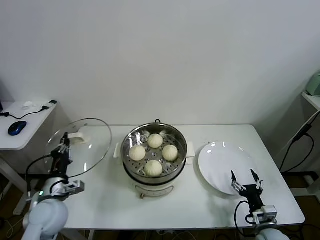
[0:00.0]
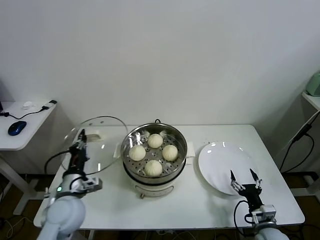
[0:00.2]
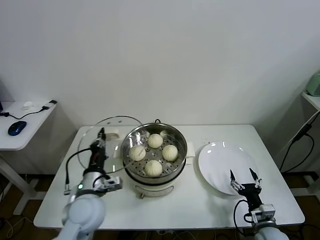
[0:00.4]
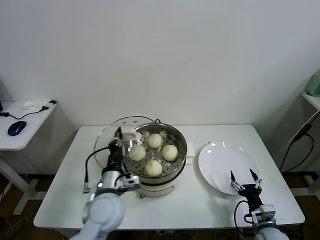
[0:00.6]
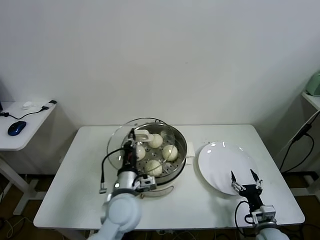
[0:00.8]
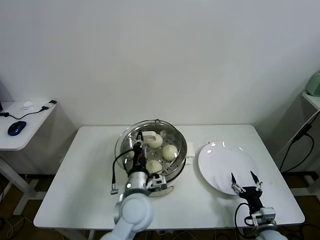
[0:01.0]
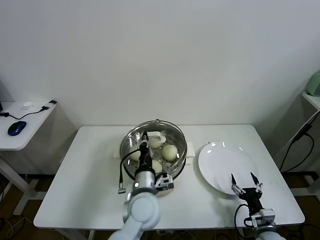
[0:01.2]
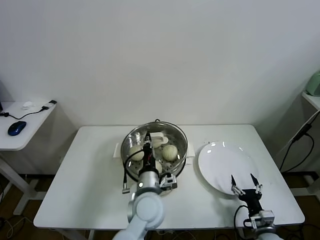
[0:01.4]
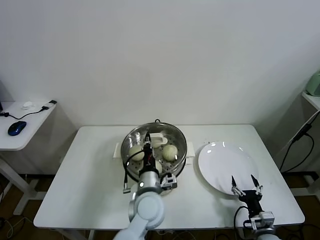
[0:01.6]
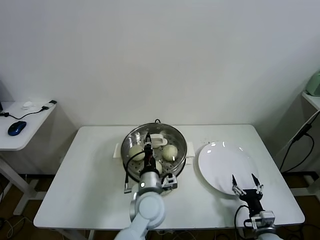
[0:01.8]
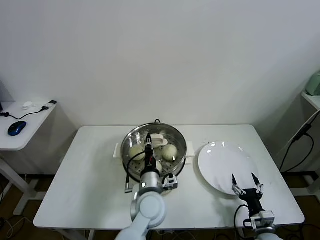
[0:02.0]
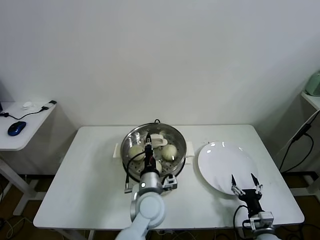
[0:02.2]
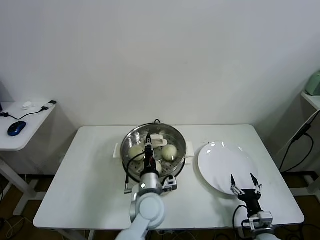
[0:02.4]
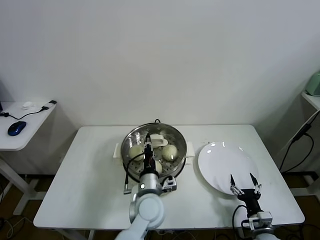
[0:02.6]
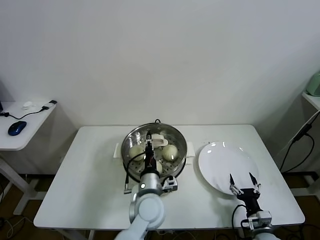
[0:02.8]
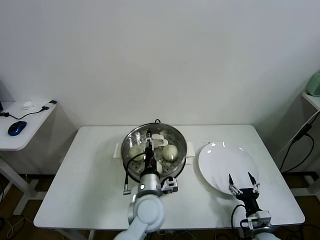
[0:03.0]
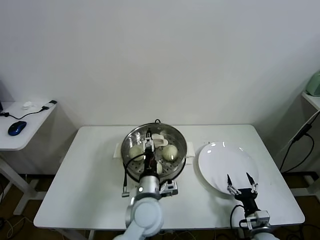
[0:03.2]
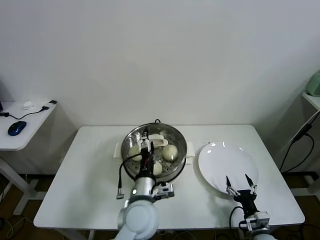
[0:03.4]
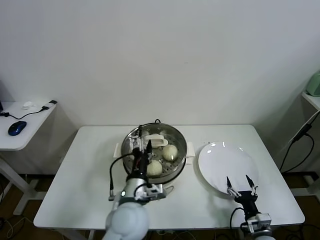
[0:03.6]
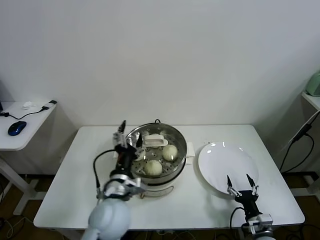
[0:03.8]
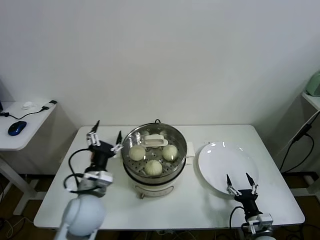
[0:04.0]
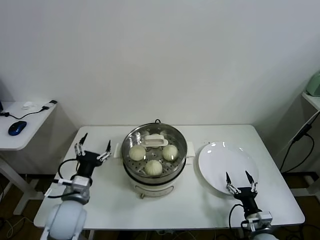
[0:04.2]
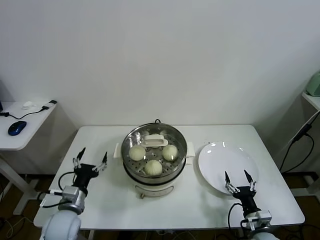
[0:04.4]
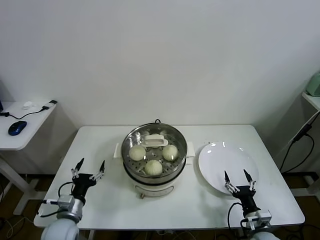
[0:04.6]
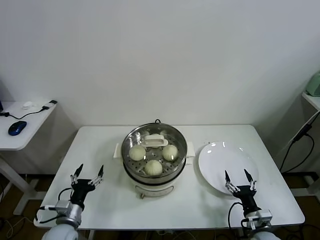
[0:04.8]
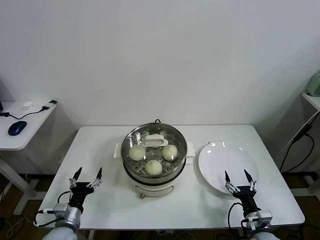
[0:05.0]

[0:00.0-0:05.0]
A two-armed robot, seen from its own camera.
Task of the whole recording: take steamed baozi put them in steamer.
Step, 0:00.0 to 0:03.2: Place the pot lid on the steamer with left gripper.
0:00.0 to 0:01.6: The left gripper moves to the right, approximately 30 cm.
0:01.6 to 0:03.4: The left gripper opens its fingers.
0:03.4 to 0:05.0: The left gripper shifts about 30 cm to the left and downward.

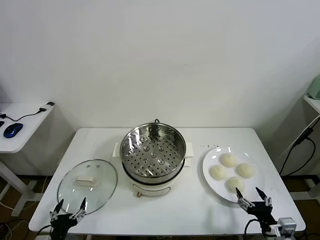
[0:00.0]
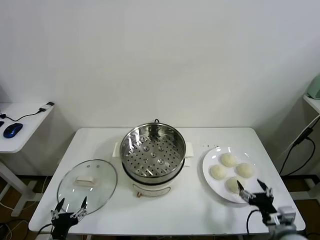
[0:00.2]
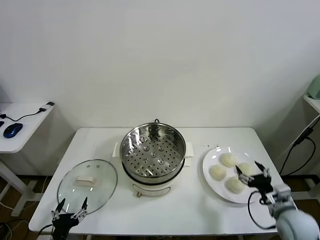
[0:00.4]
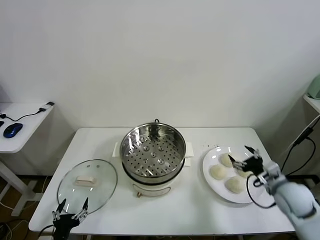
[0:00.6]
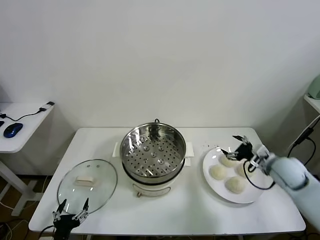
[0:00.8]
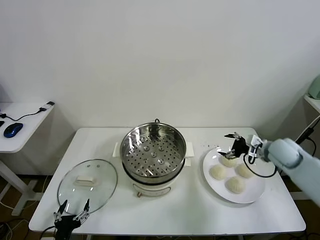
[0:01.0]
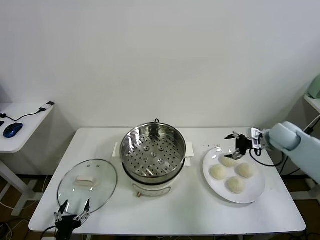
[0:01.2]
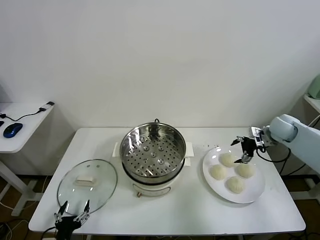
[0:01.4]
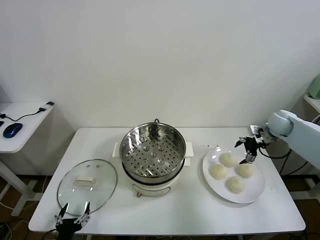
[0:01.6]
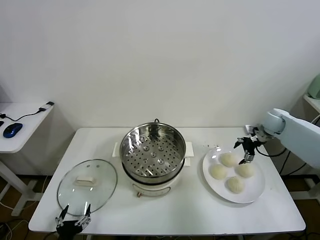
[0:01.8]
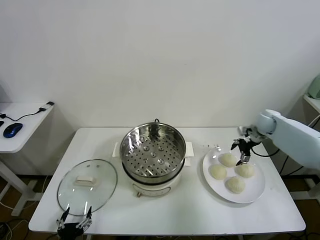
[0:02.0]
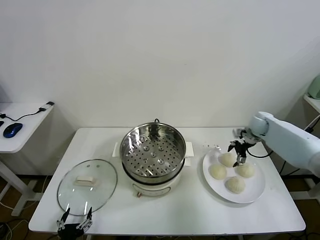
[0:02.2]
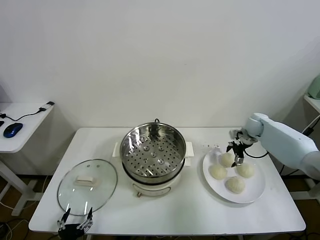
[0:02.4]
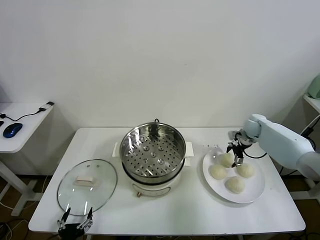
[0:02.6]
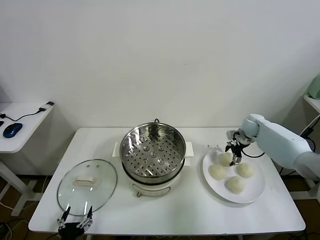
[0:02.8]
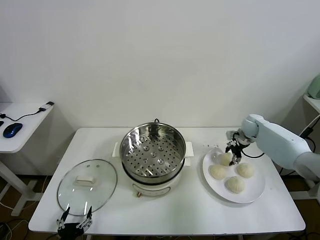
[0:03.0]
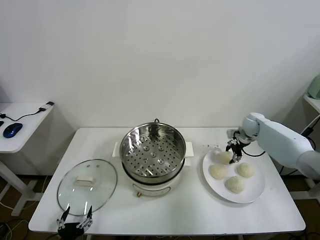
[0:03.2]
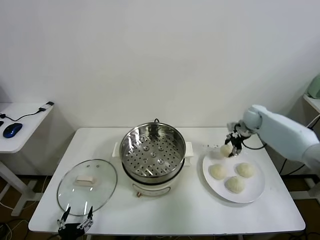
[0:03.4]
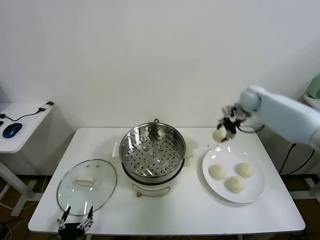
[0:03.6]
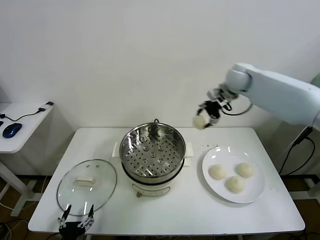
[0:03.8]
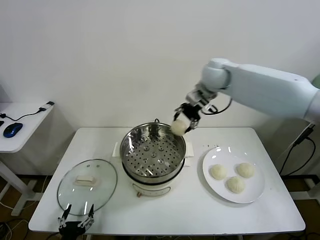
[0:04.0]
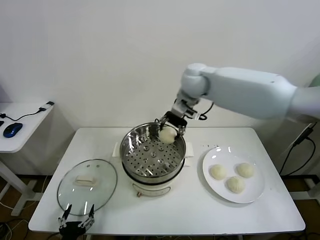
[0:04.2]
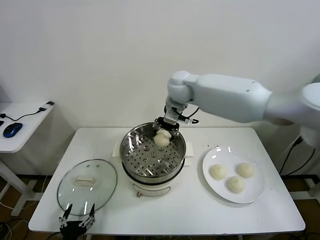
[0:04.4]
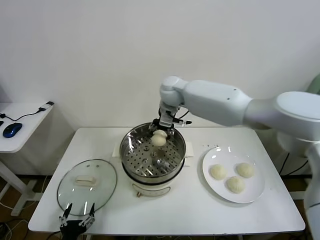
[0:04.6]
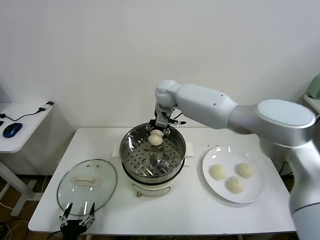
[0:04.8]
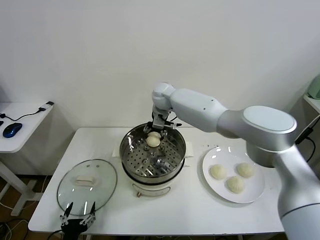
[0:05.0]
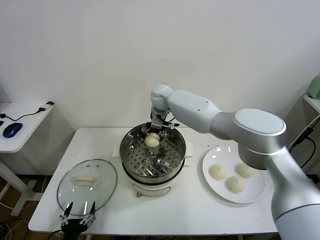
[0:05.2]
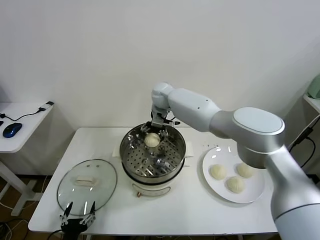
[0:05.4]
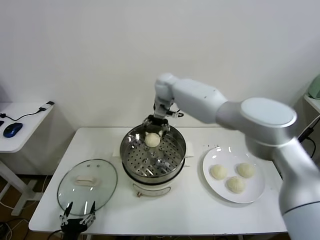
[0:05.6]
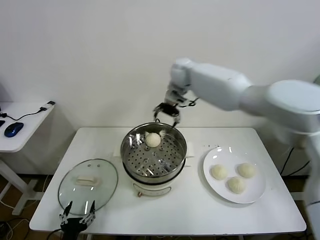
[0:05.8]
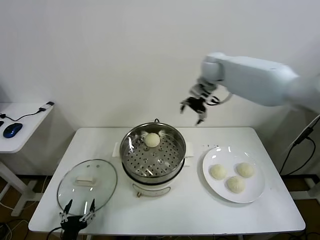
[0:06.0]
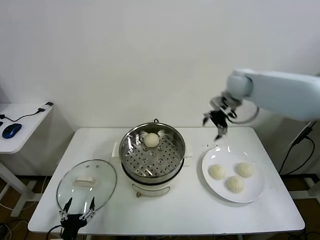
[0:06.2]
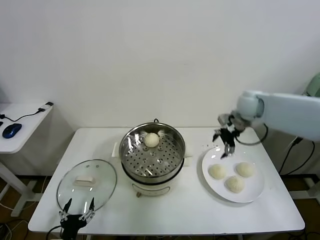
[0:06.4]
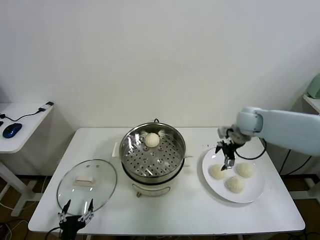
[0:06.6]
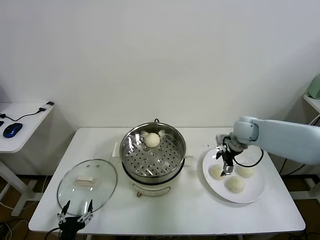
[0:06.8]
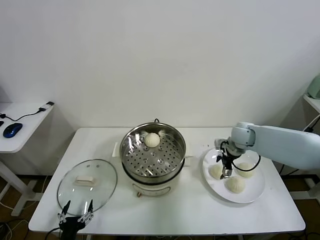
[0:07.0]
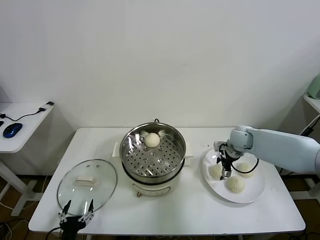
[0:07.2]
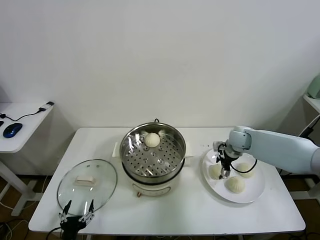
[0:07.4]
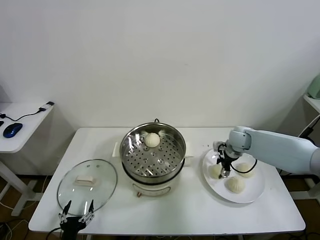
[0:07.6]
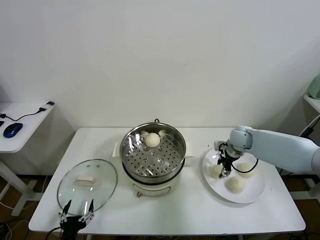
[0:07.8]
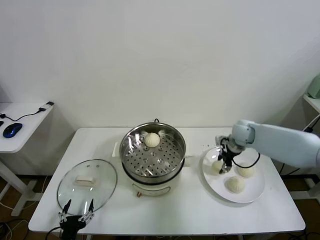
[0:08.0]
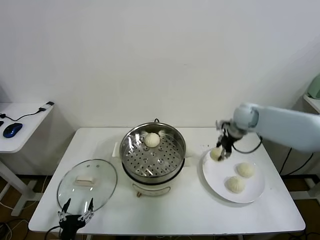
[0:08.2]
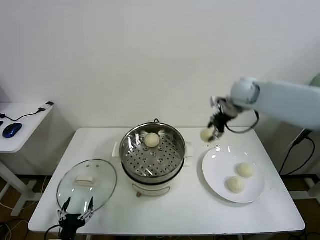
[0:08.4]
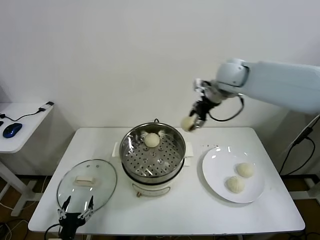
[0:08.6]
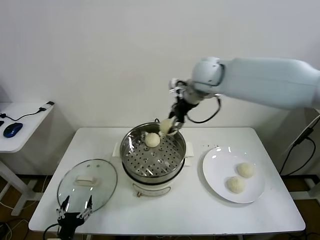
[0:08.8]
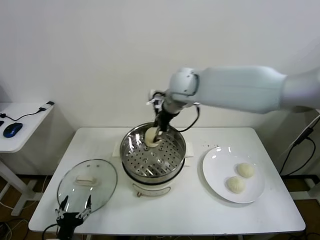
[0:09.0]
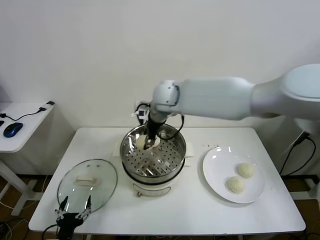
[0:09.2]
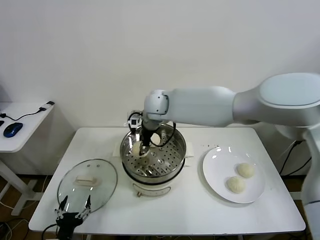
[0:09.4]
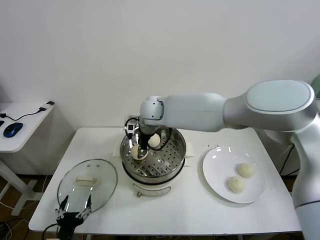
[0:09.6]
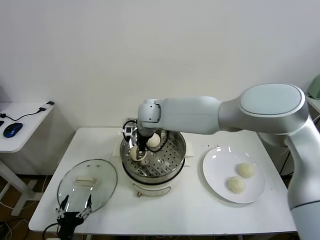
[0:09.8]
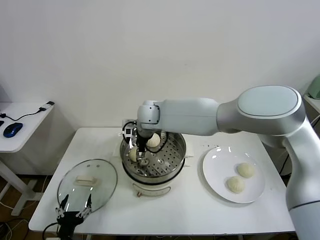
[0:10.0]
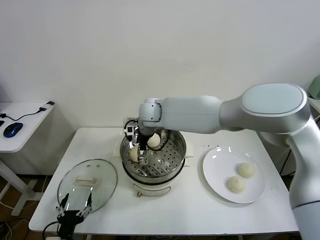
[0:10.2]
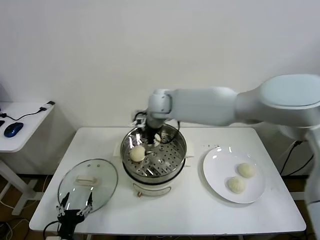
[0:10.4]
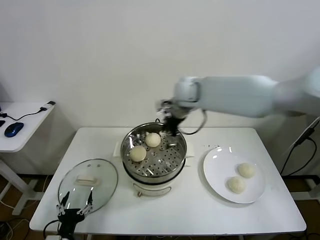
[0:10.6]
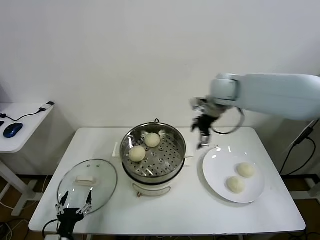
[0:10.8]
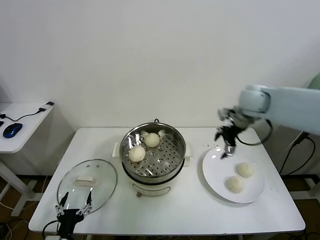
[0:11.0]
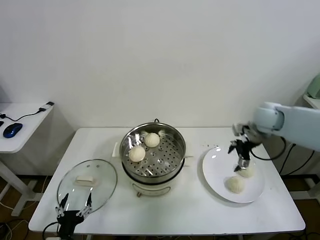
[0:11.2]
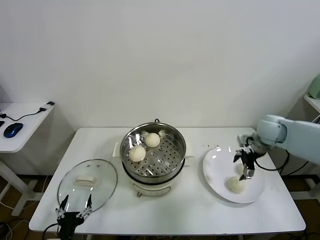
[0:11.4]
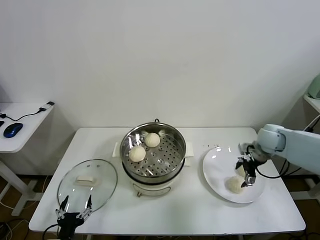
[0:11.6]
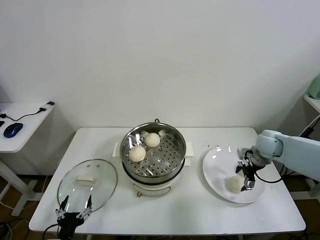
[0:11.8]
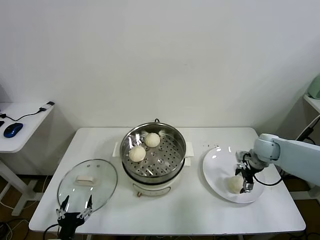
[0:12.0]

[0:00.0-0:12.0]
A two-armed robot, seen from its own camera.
Task of the whole recording: take steamed baozi put them in steamer.
Step, 0:00.0 to 0:03.0: Grasp the baozi in the plate with right gripper.
Step, 0:03.2 to 0:05.4: Place the baozi on the steamer with right gripper.
Step, 0:05.6 to 0:07.8: Grasp the baozi in the plate with right gripper.
Step, 0:08.0 to 0:10.0: Place the baozi on the steamer with right gripper.
0:01.6 to 0:03.0: The right gripper travels downward and to the left by approximately 10 cm, and closes.
0:03.0 to 0:04.4: The right gripper heads to the left and upward, covering some 40 cm.
0:04.4 to 0:06.0: The right gripper travels to the right by some 20 cm, and opens.
0:06.0 to 0:07.6: The right gripper travels downward by approximately 25 cm, and closes up.
0:07.6 to 0:09.0: The right gripper heads to the left and upward, covering about 35 cm.
0:09.0 to 0:10.4: The right gripper opens up.
0:10.4 to 0:12.0: The right gripper heads to the right and downward, covering about 40 cm.

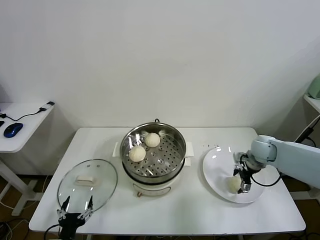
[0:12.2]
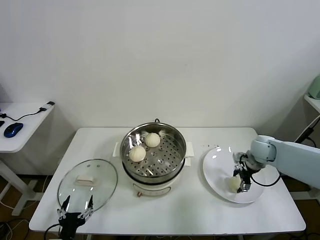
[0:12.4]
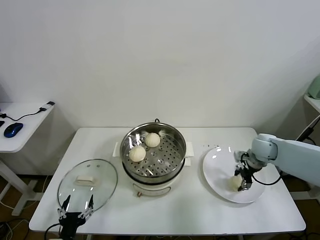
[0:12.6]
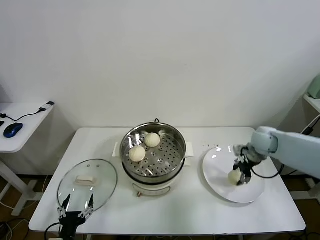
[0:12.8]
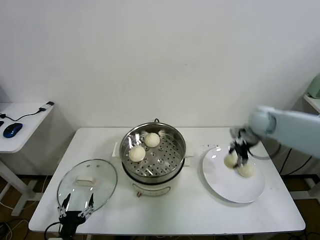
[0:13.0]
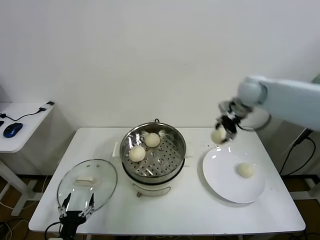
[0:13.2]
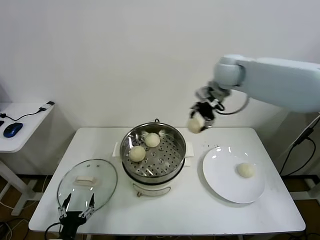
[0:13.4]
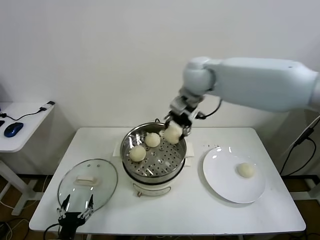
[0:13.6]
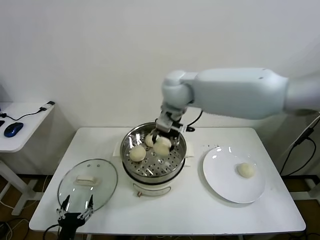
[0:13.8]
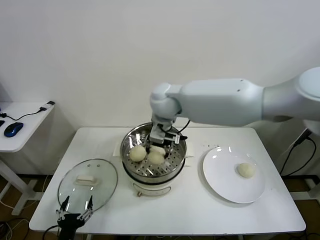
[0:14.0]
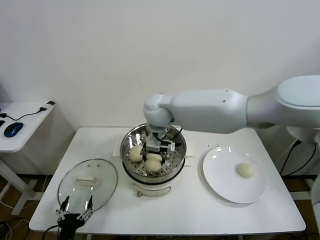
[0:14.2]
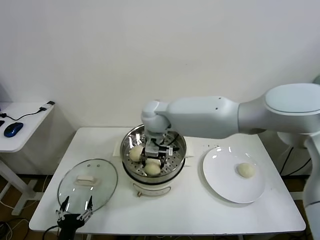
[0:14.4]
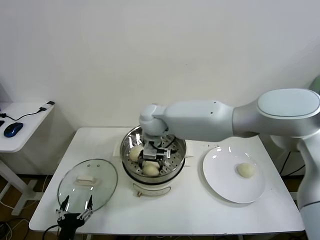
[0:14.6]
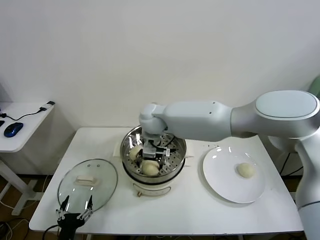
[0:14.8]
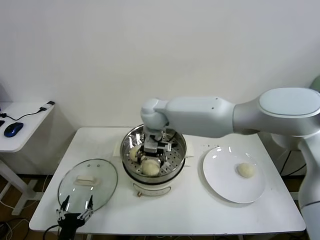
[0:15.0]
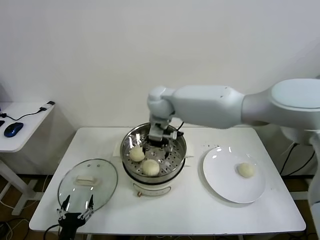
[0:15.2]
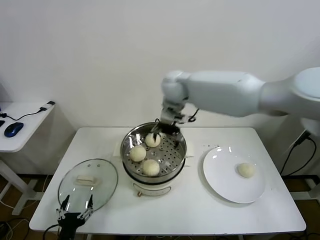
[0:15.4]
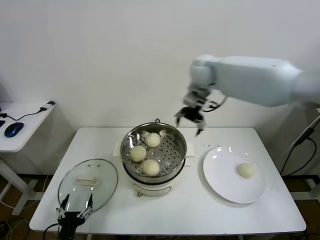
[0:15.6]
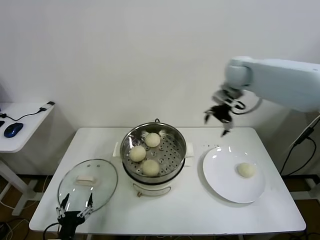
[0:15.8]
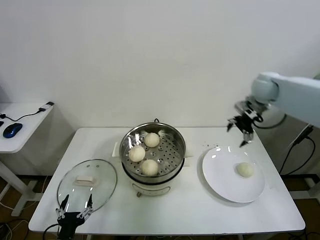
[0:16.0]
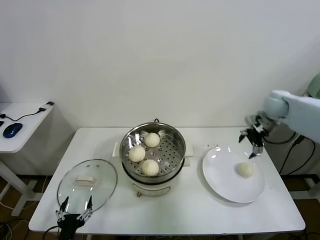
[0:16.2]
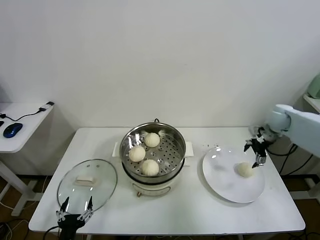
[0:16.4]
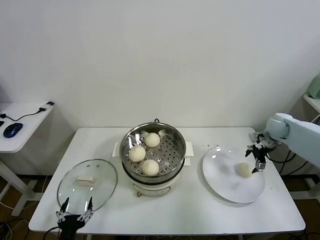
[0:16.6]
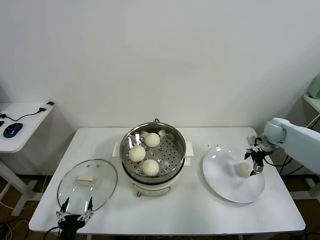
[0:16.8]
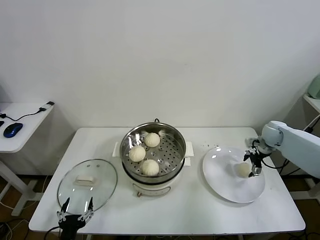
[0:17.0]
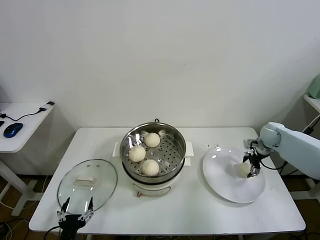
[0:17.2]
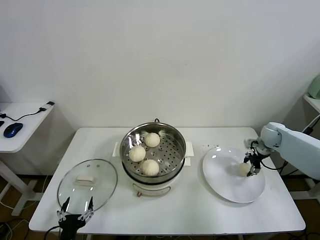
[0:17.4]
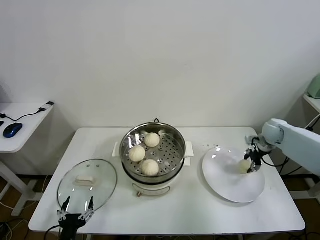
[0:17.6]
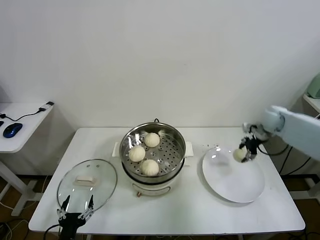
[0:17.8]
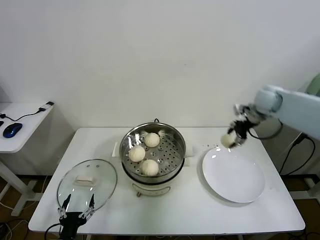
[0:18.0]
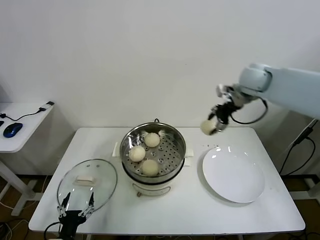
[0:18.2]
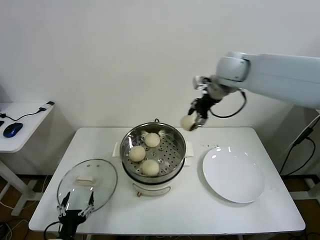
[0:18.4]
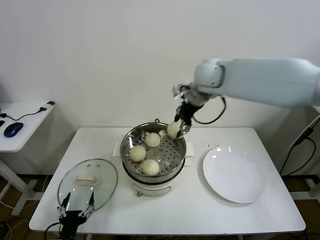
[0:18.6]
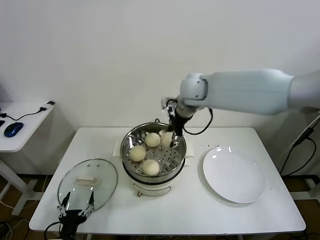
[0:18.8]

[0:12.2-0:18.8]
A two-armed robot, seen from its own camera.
Task of the whole recording: take steamed baozi put them in steamer.
Step, 0:12.8 to 0:14.8: Place the baozi on the steamer with right gripper.
Step, 0:15.0 to 0:17.4: Grasp the baozi in the plate with right gripper.
0:12.2 to 0:13.8: The right gripper is displaced to the left and upward by approximately 40 cm, and closes.
0:13.8 to 0:15.4: The right gripper heads forward, covering approximately 5 cm, goes downward and returns, approximately 10 cm each way, and opens up.
0:15.4 to 0:17.2: The right gripper travels to the right and downward by approximately 40 cm.
0:17.2 to 0:18.8: The right gripper travels to the left and upward by approximately 40 cm, and closes up.